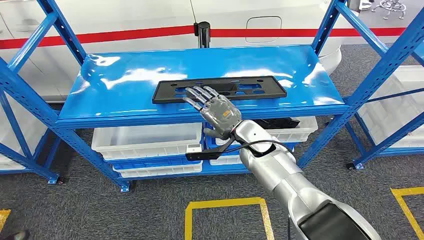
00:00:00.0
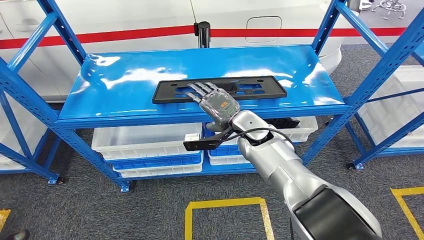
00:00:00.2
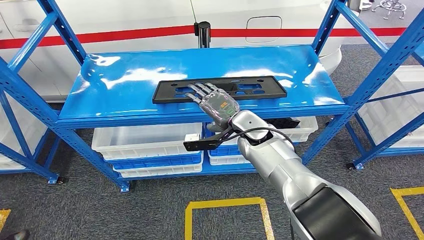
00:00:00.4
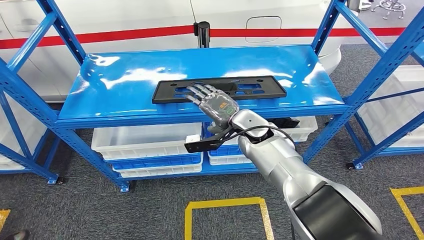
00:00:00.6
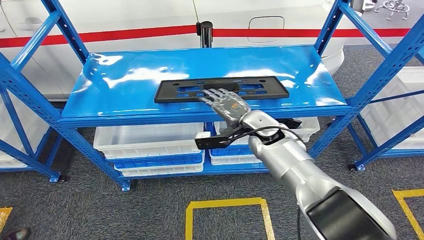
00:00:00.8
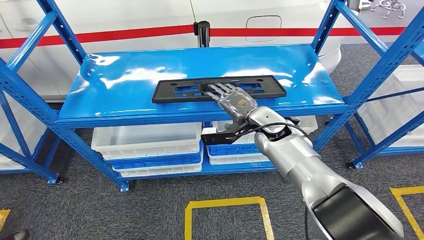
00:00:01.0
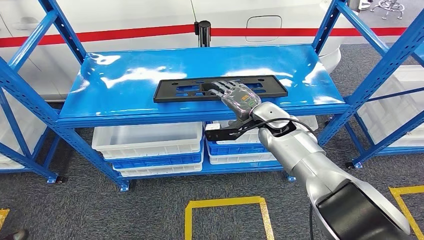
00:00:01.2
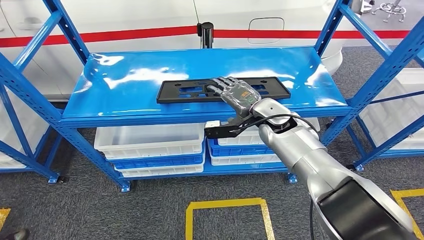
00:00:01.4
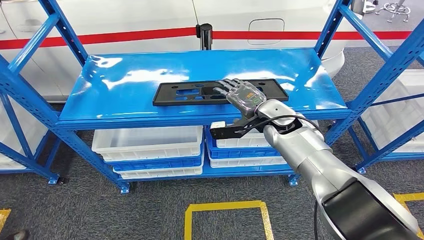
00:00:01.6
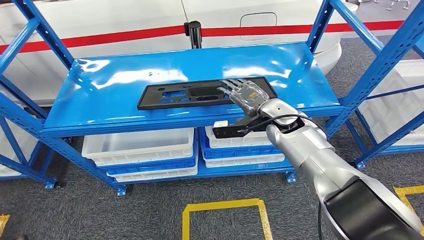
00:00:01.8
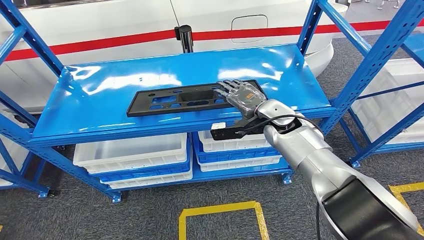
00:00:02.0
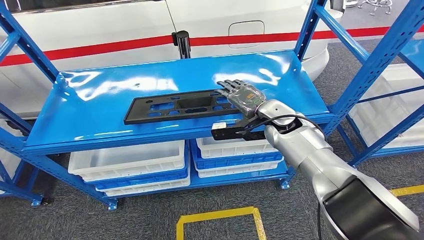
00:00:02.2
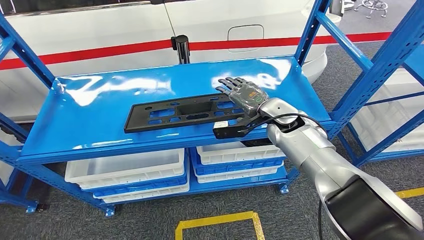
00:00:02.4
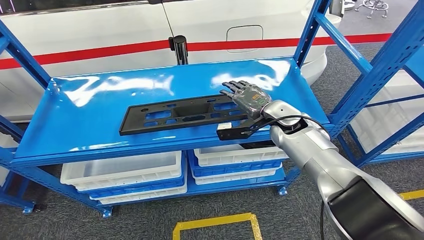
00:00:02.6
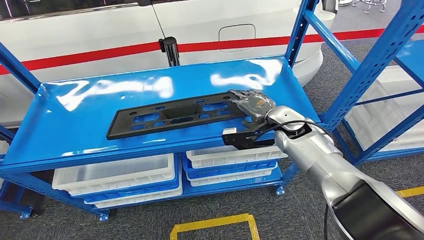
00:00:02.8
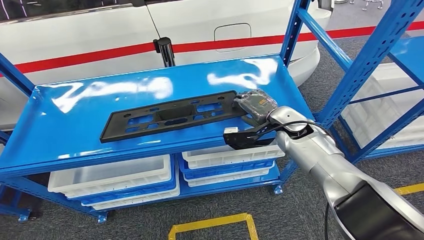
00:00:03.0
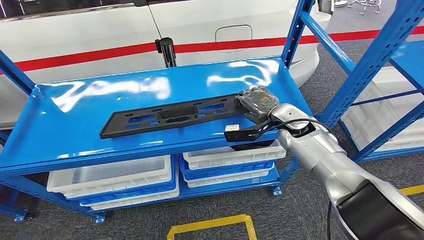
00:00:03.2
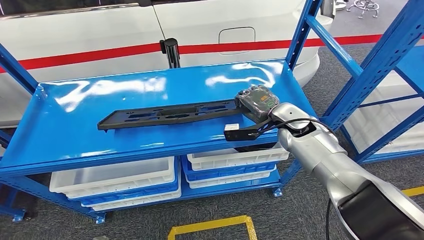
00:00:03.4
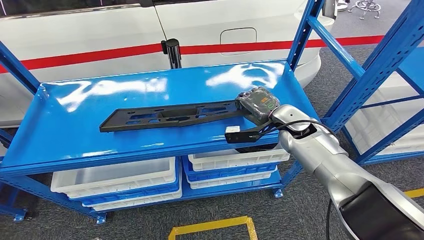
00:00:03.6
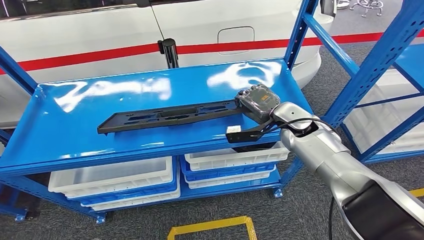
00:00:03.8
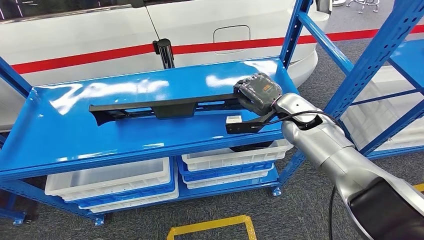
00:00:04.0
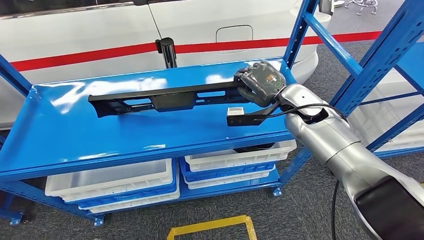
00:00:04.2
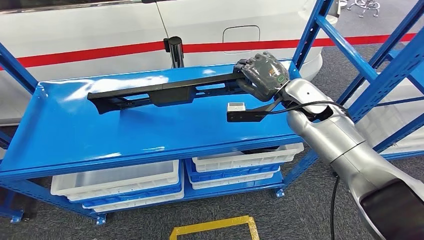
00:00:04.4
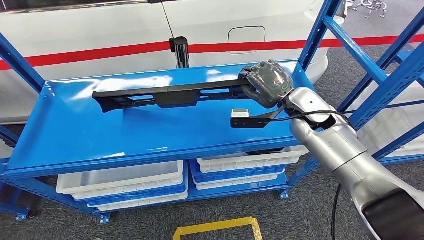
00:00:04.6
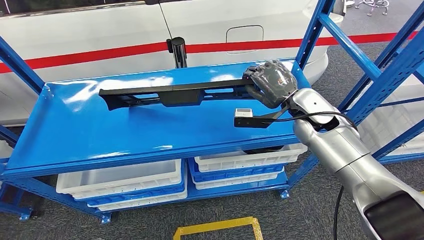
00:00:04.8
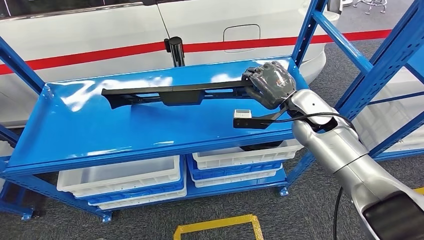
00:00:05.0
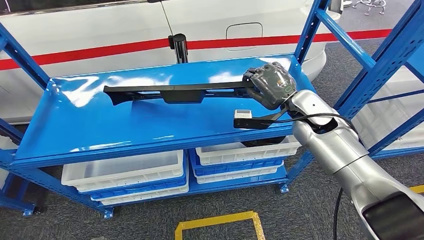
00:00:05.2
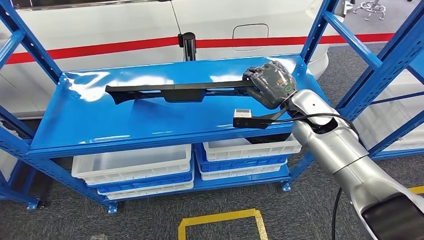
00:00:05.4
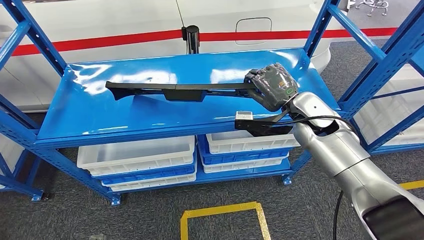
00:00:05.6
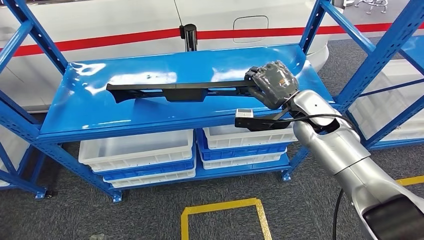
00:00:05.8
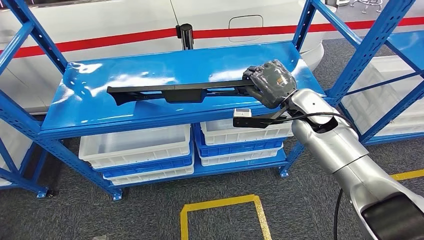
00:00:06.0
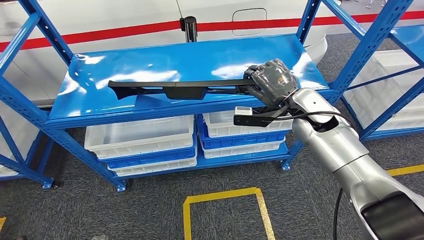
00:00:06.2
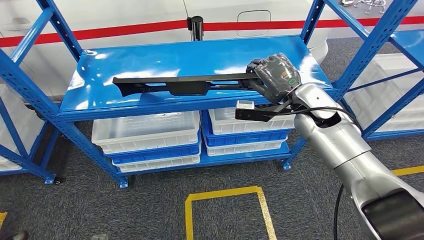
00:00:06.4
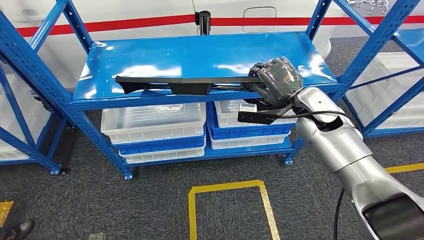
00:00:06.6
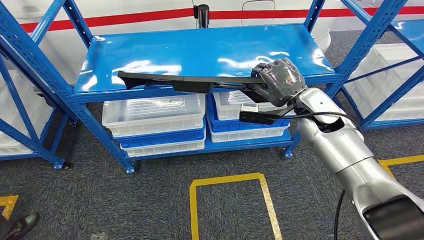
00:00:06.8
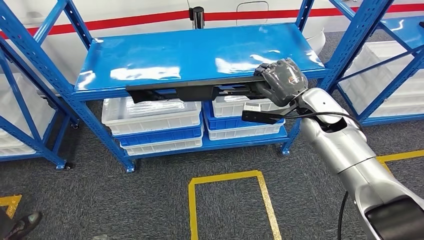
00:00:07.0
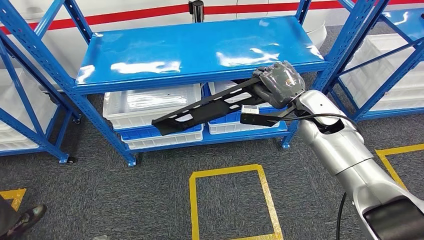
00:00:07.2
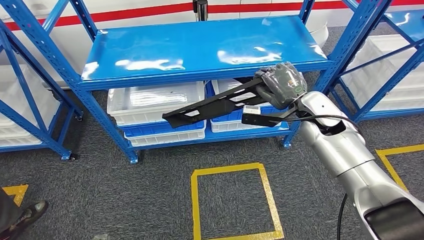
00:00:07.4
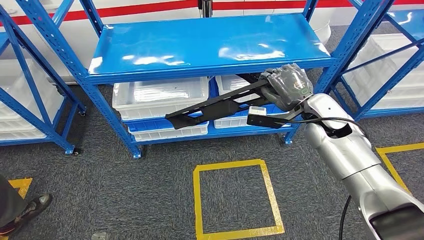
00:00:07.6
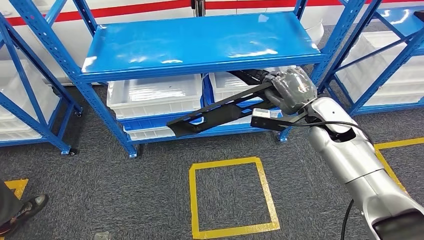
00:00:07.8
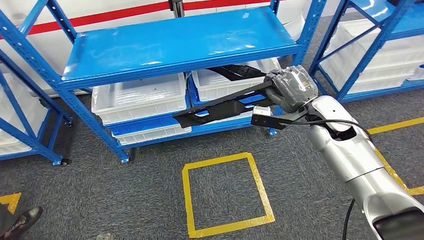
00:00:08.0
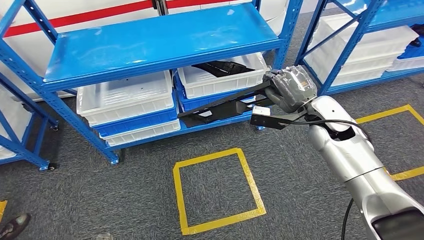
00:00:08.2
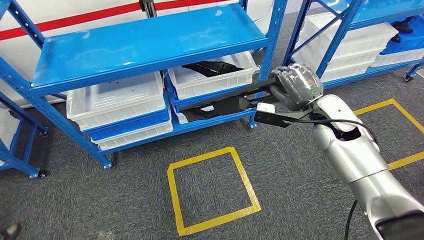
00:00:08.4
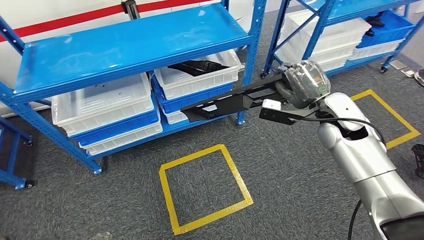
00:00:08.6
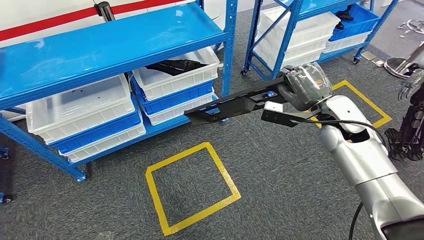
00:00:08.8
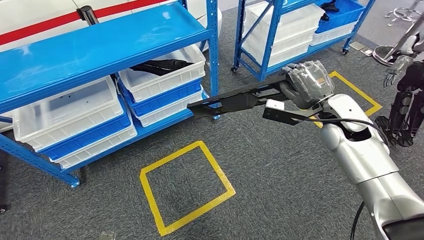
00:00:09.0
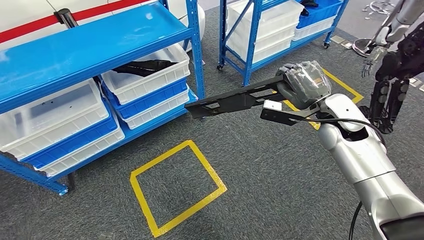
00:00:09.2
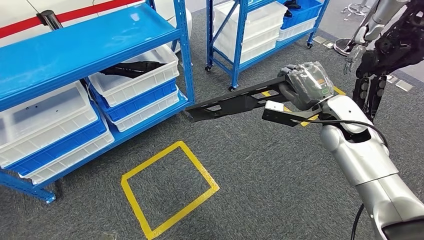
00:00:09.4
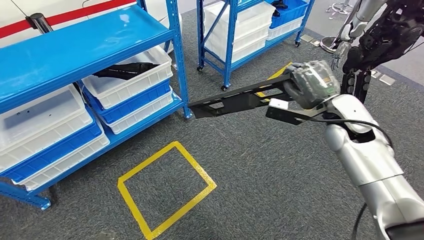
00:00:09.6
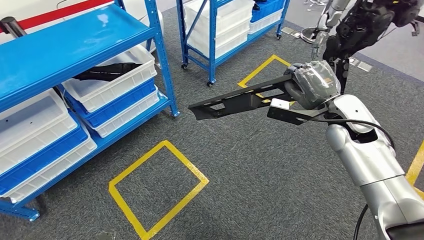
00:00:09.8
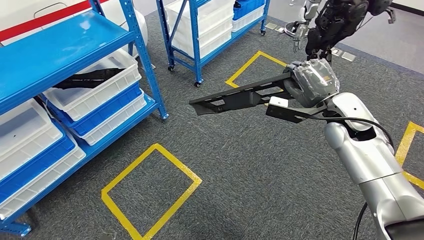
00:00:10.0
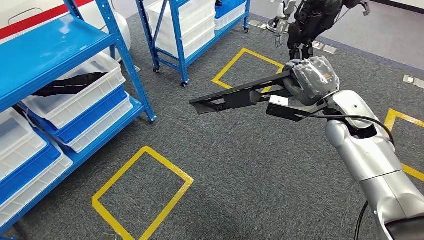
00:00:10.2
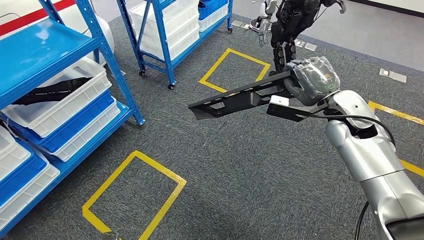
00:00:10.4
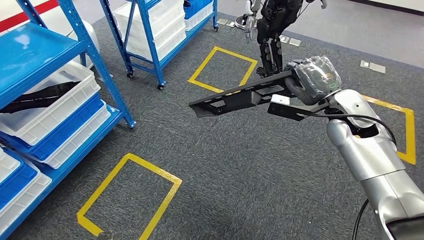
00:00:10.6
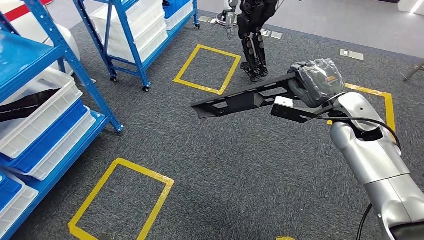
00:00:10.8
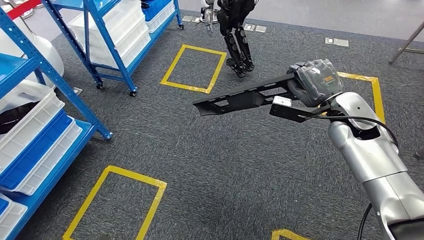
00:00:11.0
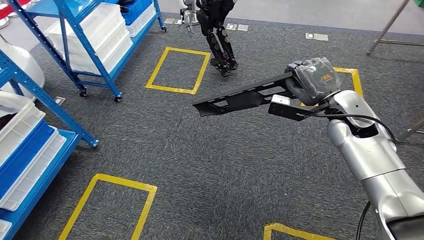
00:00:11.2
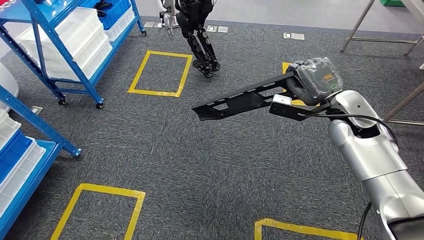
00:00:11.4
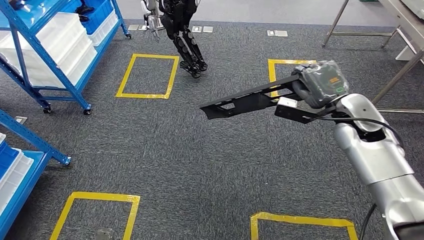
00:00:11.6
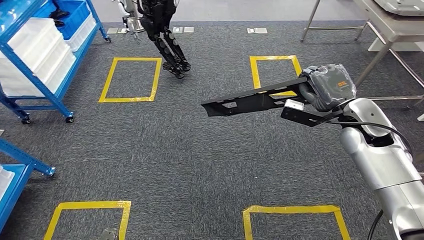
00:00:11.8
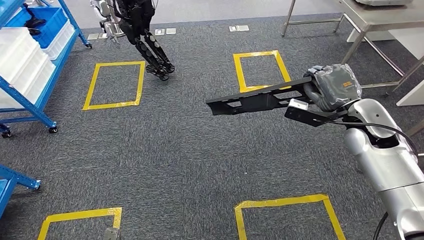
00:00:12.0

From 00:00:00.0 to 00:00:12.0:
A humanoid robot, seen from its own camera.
Step, from 00:00:00.0 to 00:00:05.0: Pick up the large parts from the shelf.

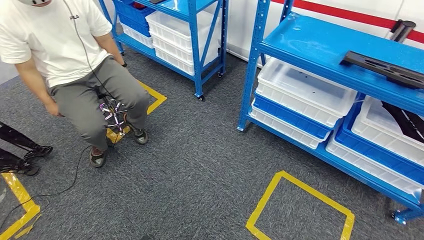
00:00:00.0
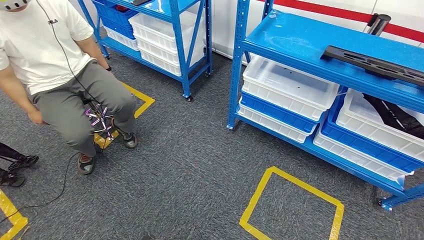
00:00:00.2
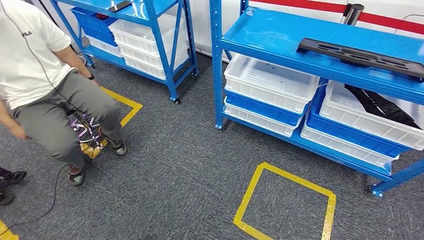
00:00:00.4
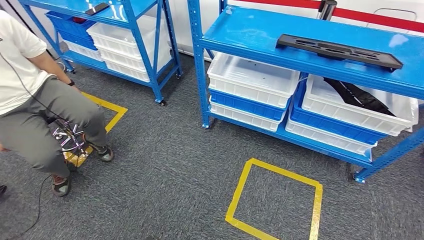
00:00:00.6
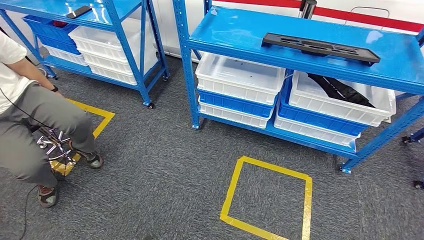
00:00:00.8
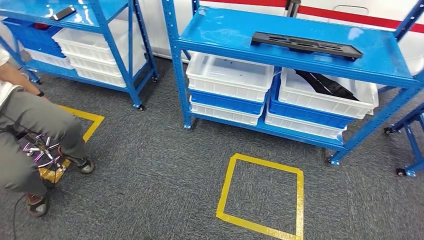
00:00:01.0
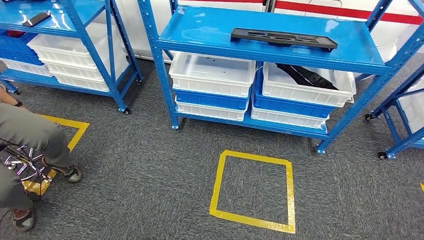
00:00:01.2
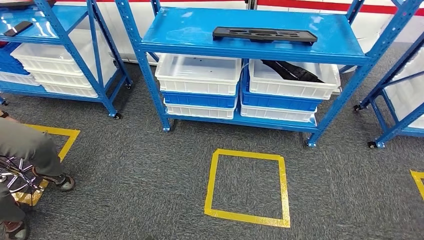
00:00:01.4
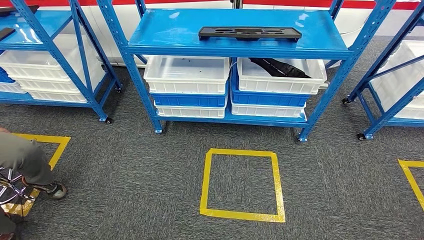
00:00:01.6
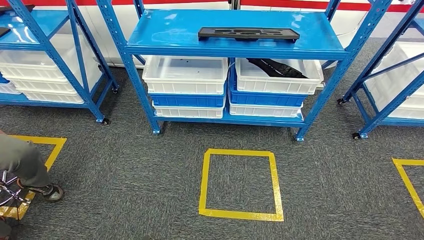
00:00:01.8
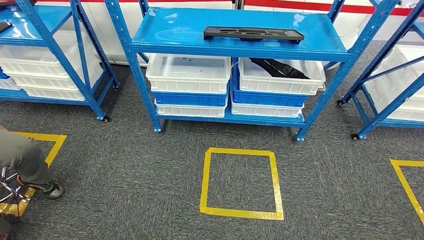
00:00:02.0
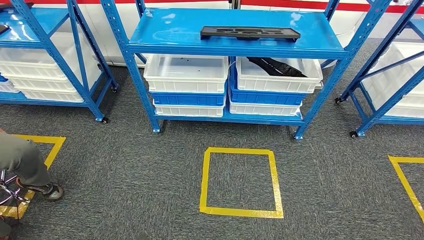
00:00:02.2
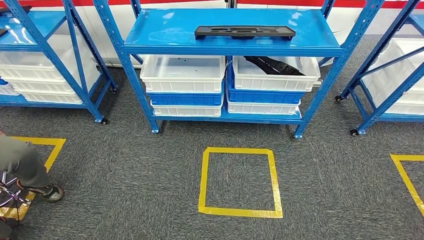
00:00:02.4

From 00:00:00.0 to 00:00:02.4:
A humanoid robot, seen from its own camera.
Step, from 00:00:00.0 to 00:00:02.4: Return to the initial position at the shelf.
